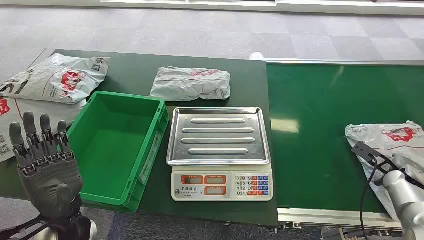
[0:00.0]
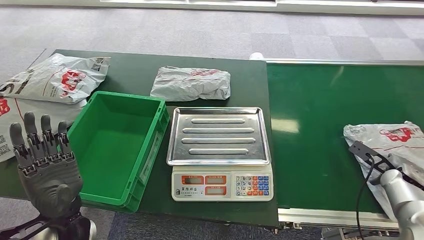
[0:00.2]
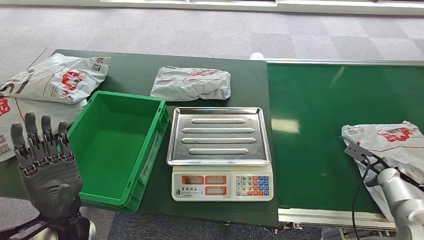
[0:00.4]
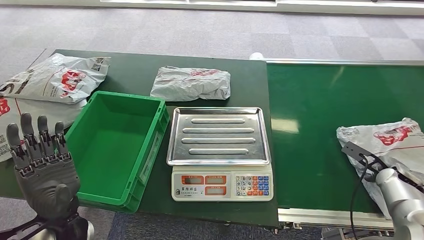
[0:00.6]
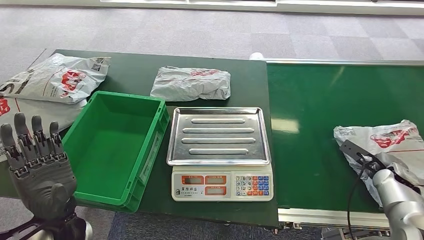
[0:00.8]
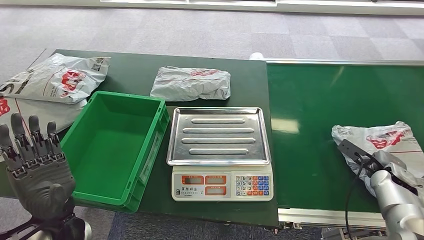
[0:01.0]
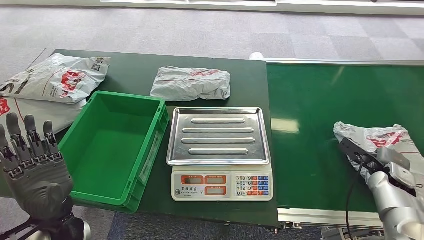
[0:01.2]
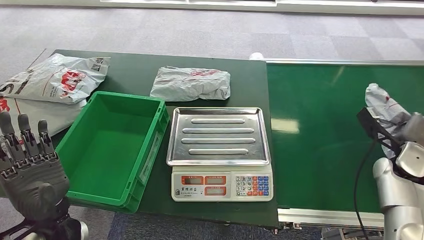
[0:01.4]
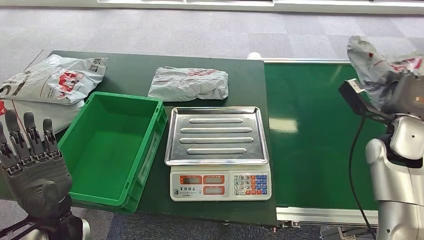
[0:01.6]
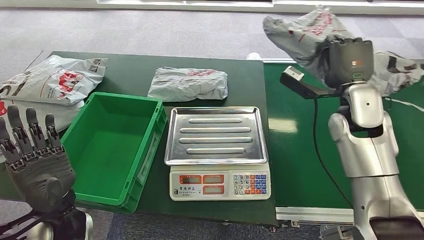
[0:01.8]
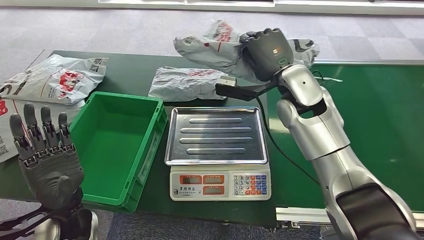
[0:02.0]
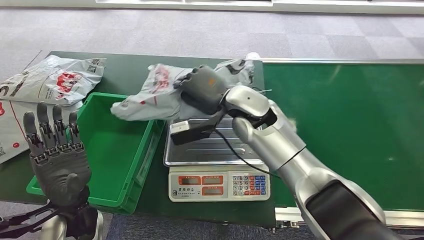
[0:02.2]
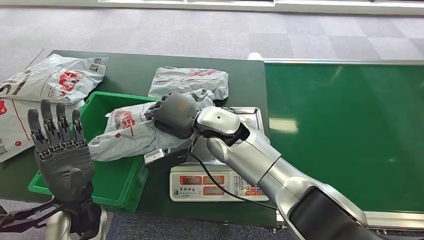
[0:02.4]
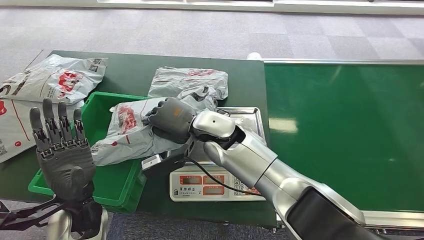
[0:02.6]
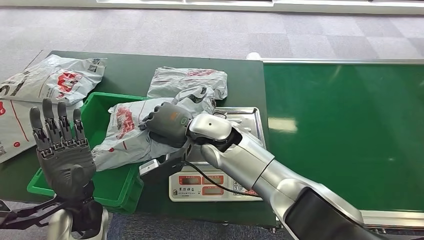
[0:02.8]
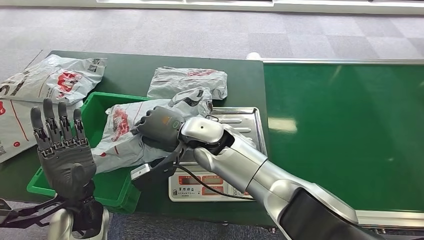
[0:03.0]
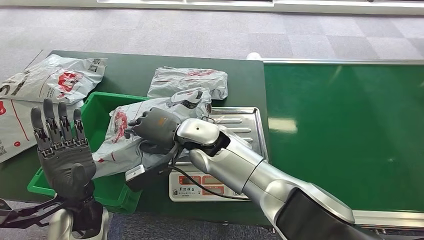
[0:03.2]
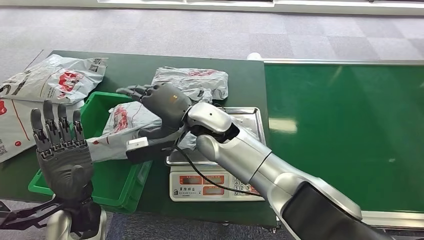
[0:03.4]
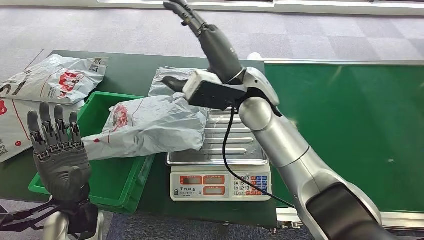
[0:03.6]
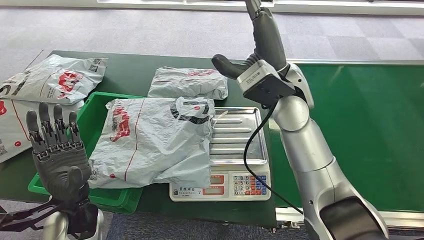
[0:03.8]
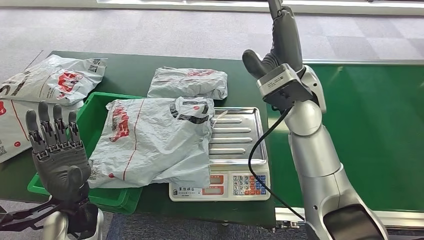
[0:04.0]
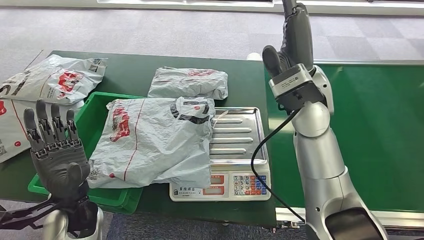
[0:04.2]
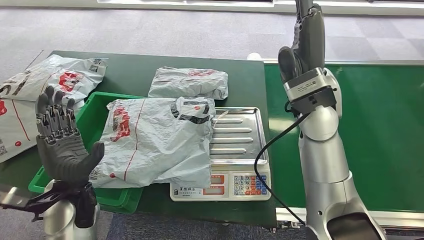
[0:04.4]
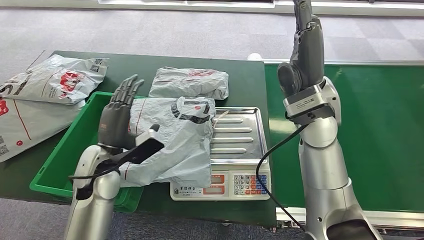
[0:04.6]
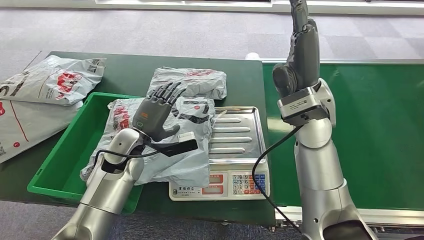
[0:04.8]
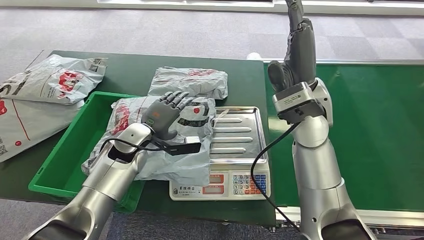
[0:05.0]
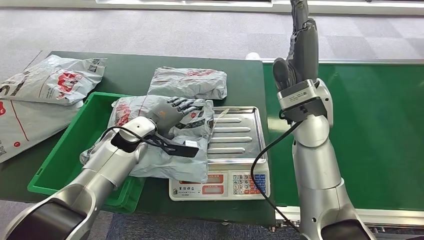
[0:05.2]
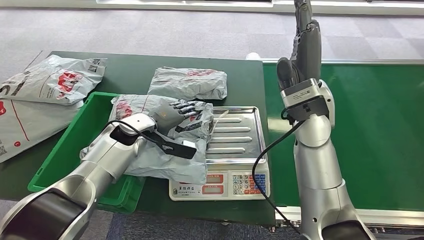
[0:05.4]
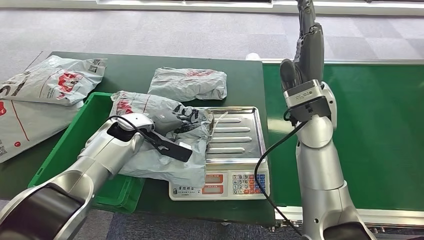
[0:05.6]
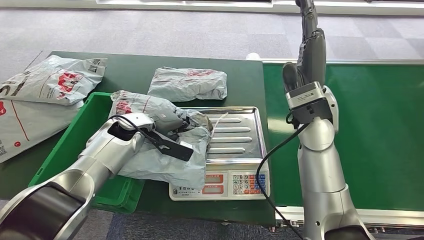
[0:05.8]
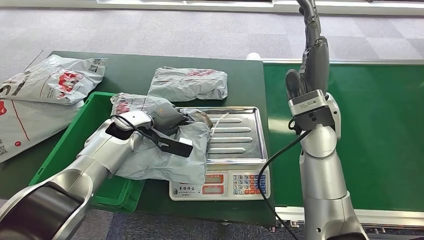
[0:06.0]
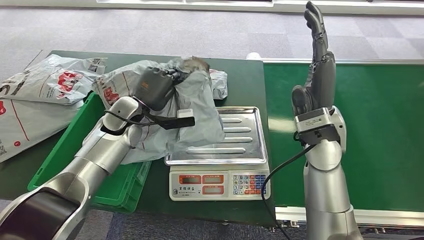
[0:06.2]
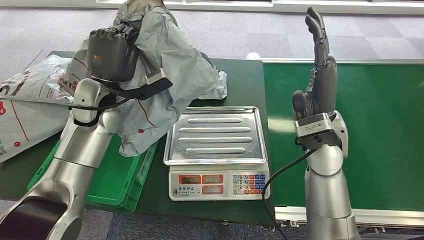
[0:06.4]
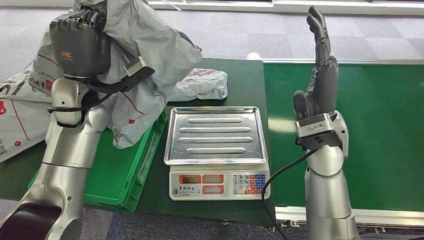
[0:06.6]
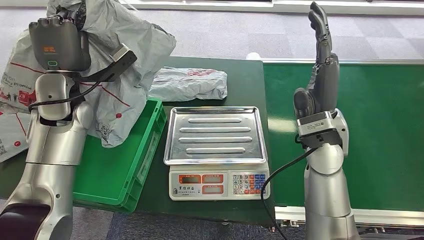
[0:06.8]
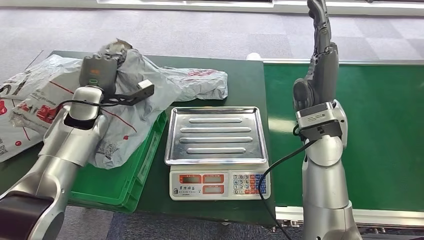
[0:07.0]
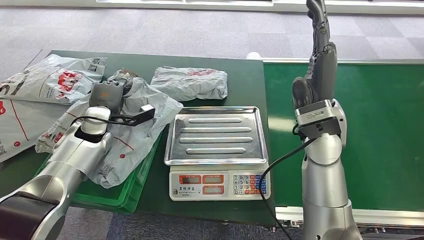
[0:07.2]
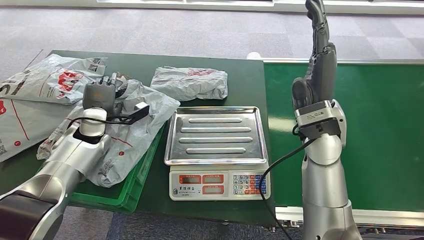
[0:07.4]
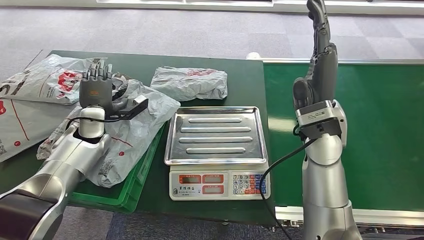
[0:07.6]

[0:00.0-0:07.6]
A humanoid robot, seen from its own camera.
Task of the whole recording: Weigh the package on the weighing device and place it in the left basket.
Step, 0:00.0 to 0:01.4: Pick up the package from the conveyor belt.
Step, 0:01.6 to 0:03.0: Place the package onto the inbound machine.
Step, 0:05.0 to 0:06.8: Pick up the package from the inbound machine.
Step, 0:07.2 to 0:07.6: Place the package into the parcel locker.
